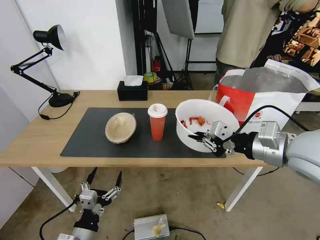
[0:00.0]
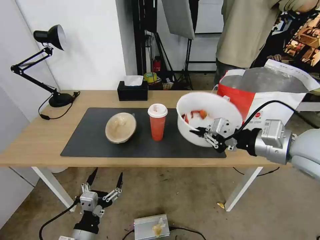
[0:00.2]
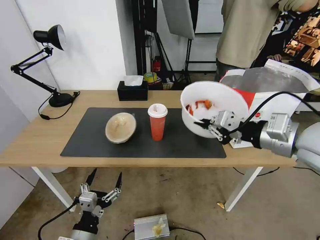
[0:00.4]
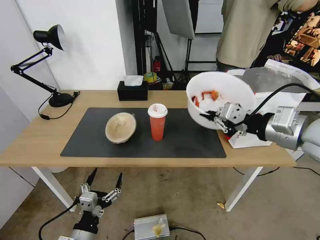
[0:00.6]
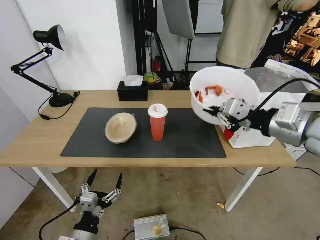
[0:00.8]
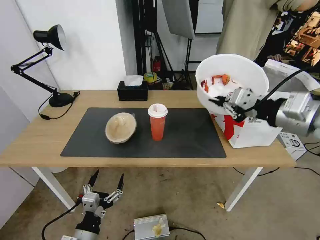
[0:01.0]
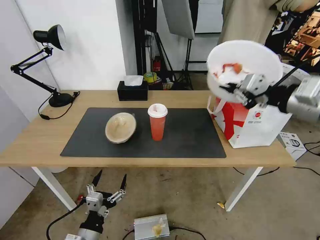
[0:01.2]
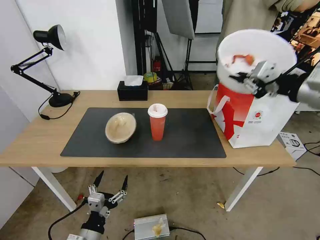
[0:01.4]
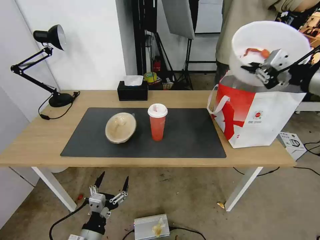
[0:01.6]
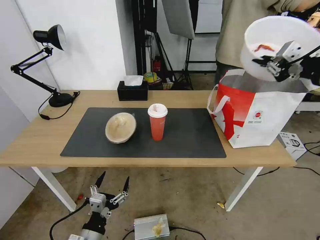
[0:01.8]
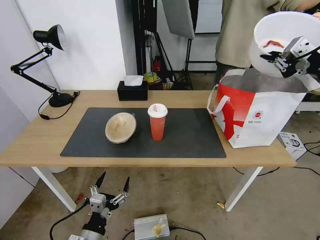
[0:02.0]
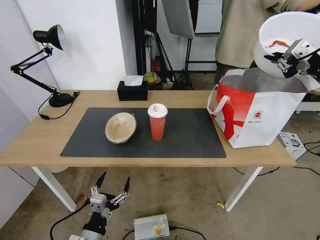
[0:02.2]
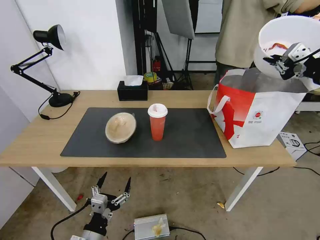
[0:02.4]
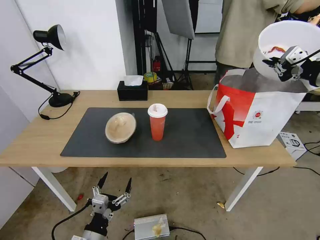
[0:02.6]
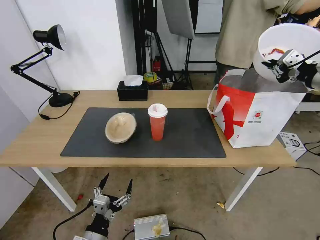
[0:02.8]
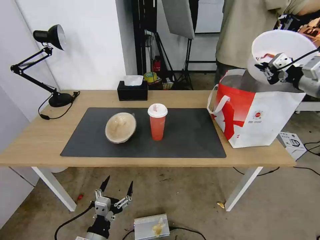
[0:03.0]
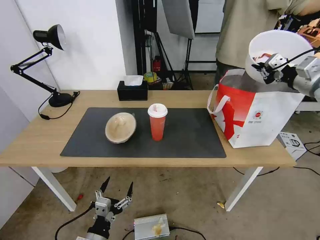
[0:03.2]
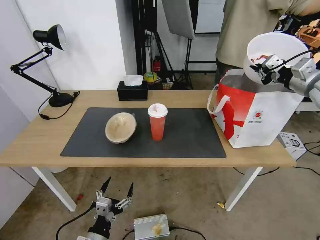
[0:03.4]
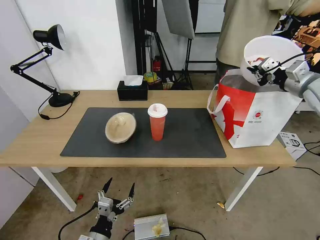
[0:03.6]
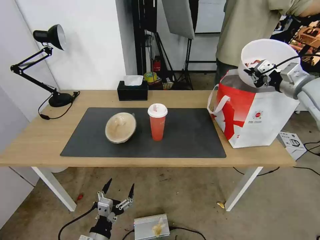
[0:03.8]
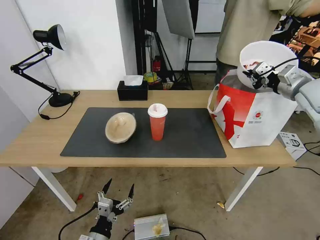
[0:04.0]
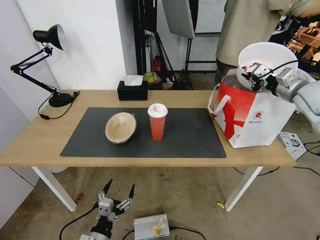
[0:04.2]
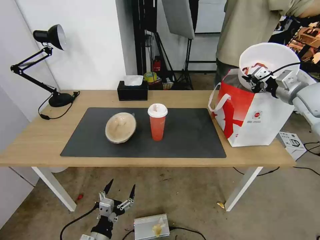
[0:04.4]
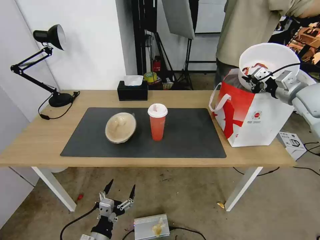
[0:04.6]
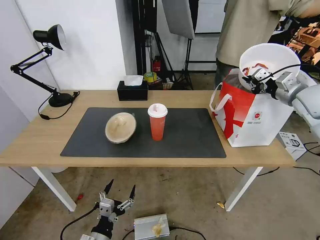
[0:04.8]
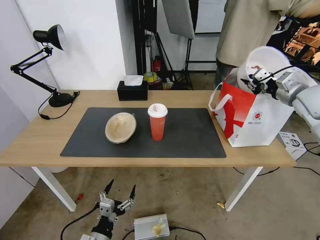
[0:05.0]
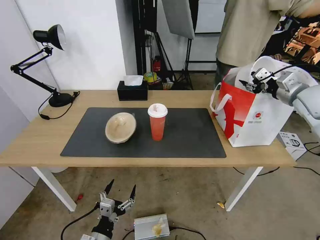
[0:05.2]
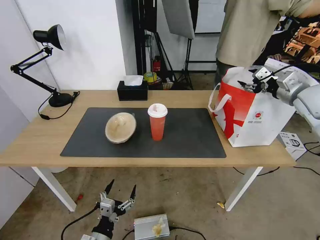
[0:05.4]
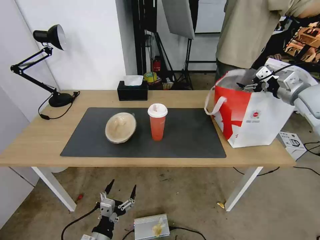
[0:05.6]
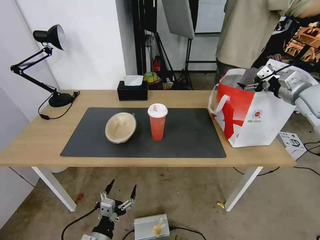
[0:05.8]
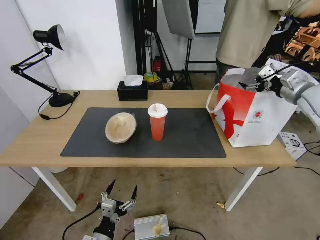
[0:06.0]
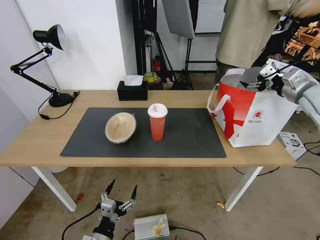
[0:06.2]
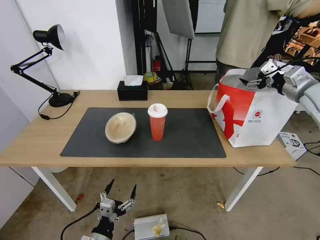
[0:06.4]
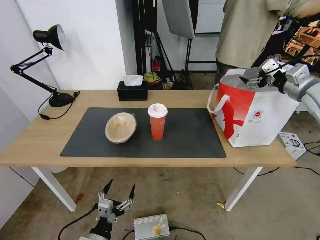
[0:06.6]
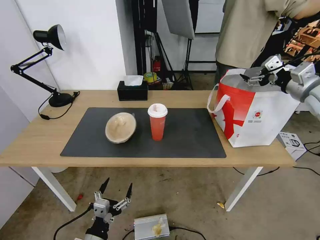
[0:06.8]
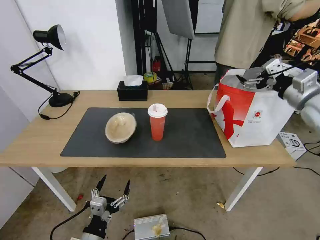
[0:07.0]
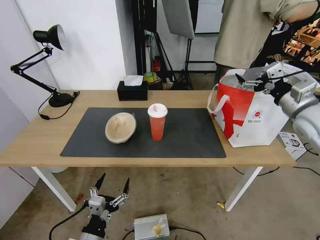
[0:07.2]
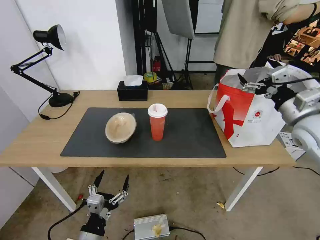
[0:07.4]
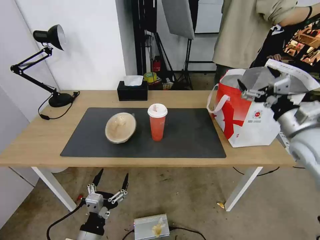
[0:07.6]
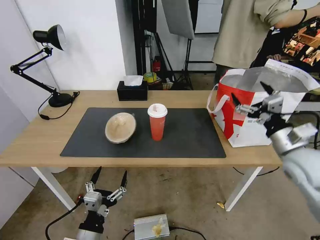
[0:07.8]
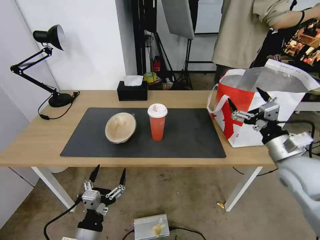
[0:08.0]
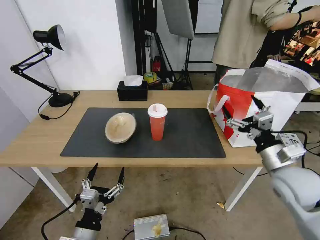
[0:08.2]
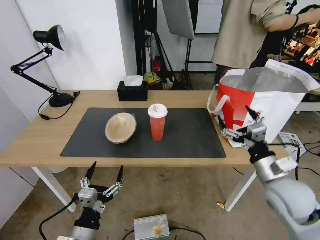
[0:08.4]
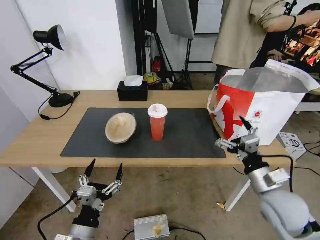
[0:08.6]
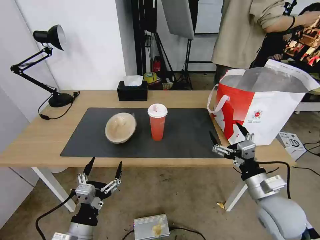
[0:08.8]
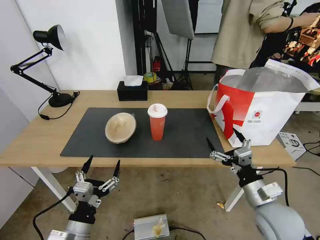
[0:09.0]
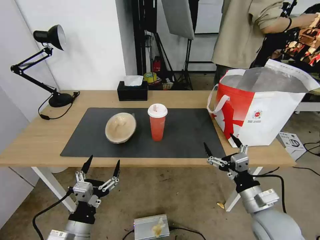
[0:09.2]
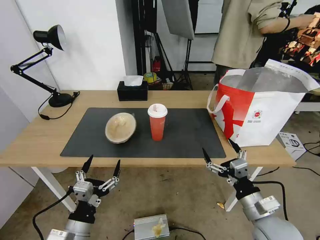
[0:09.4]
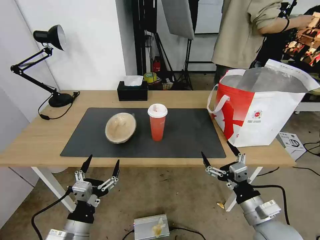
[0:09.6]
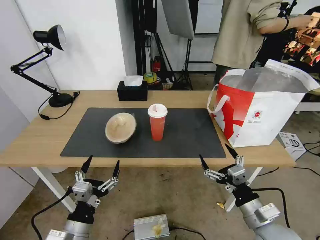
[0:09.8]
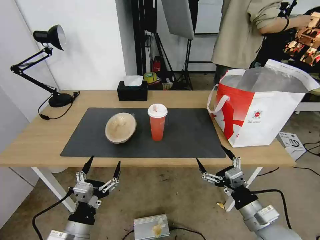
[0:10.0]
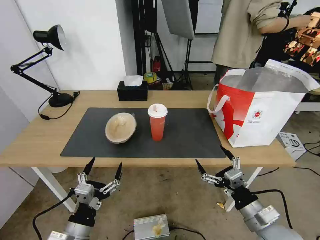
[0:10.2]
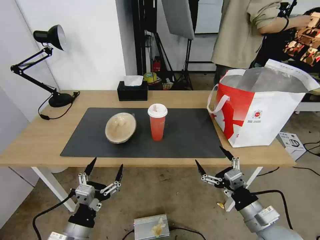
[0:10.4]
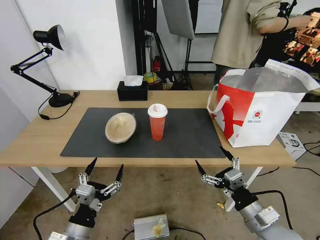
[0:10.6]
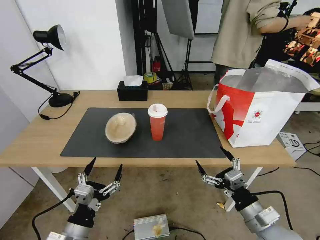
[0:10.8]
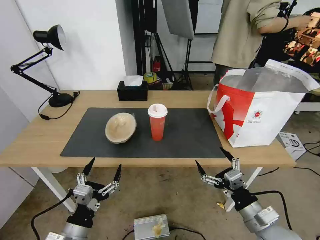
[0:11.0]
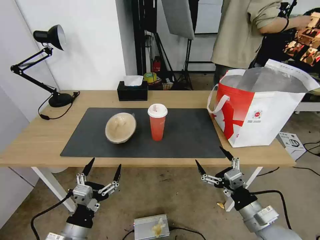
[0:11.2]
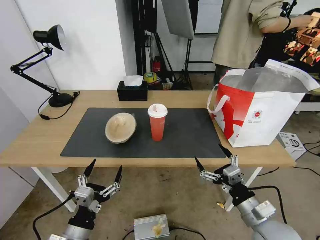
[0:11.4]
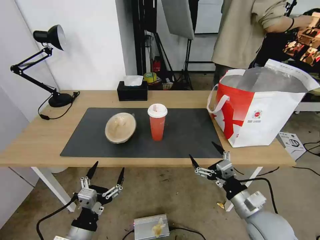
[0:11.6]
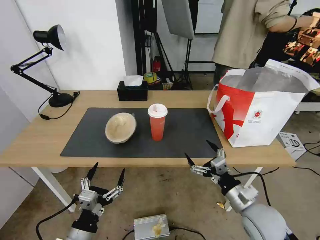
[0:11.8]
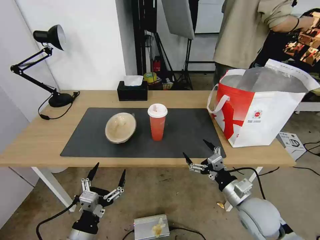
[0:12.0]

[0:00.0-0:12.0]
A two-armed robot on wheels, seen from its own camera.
Task of the whole recording: Pick up the trash from the table and place it into the takeout bag.
0:00.0 to 0:01.6: The right gripper travels upward, to the right and forward by some 15 cm.
0:01.6 to 0:03.0: The right gripper is displaced forward, to the right and downward by some 10 cm.
0:03.0 to 0:04.4: The right gripper moves downward and forward, approximately 10 cm.
0:04.4 to 0:06.0: The right gripper opens its fingers.
0:06.0 to 0:07.6: The right gripper moves backward, to the left and downward, roughly 15 cm, while the left gripper goes about 5 cm upward.
0:07.6 to 0:09.0: The right gripper moves downward, backward and to the left, approximately 20 cm.
0:09.0 to 0:10.4: The right gripper ends up about 5 cm from where it was.
0:10.4 to 0:12.0: The right gripper travels forward by some 5 cm.

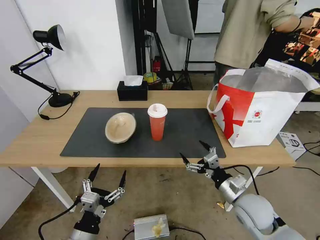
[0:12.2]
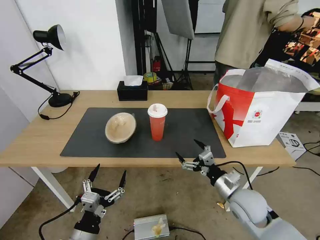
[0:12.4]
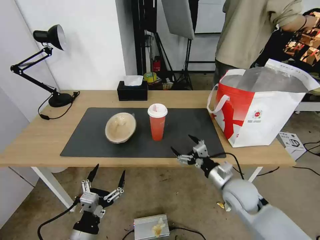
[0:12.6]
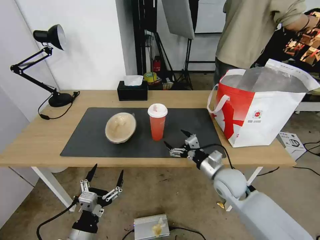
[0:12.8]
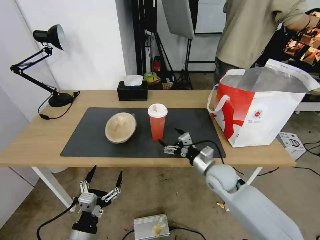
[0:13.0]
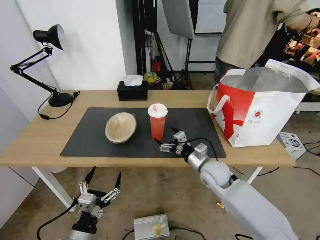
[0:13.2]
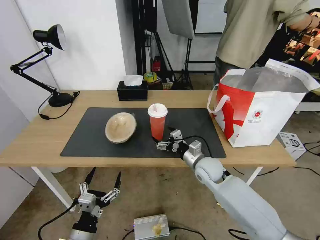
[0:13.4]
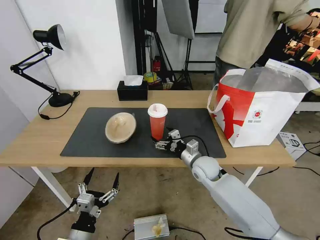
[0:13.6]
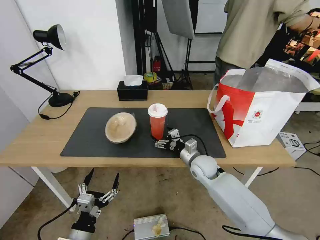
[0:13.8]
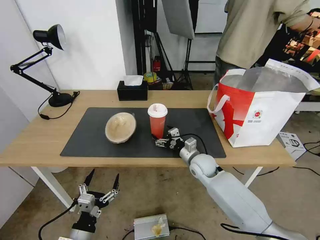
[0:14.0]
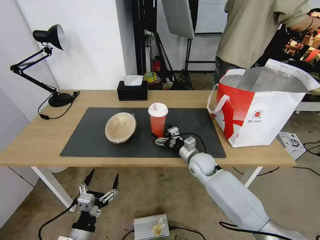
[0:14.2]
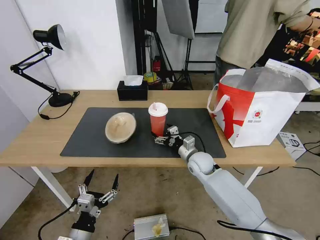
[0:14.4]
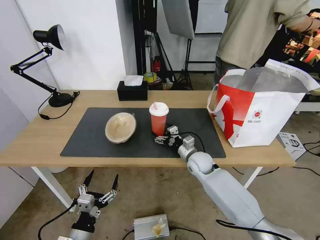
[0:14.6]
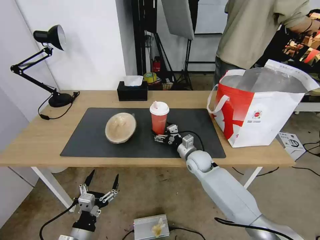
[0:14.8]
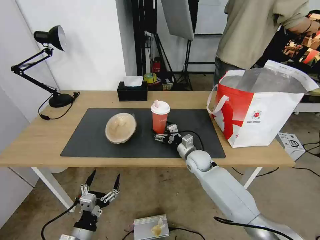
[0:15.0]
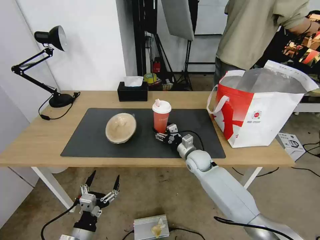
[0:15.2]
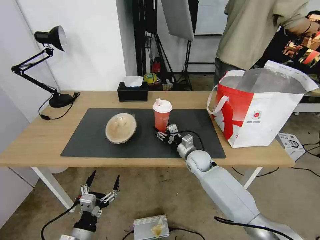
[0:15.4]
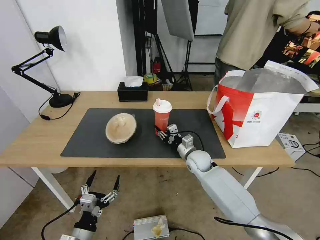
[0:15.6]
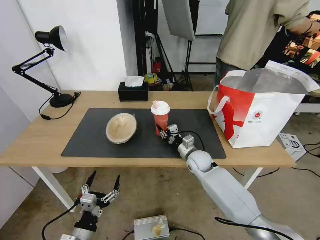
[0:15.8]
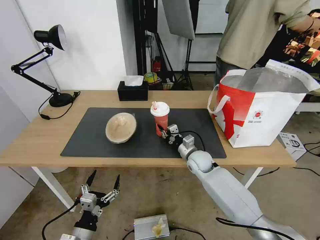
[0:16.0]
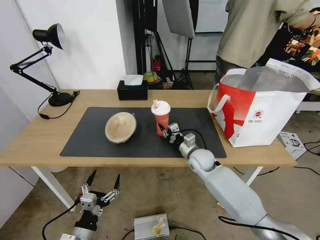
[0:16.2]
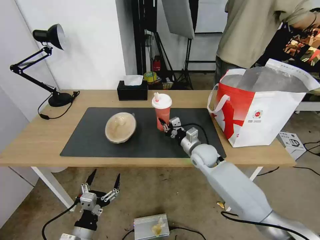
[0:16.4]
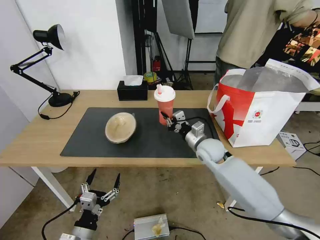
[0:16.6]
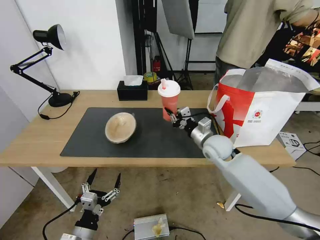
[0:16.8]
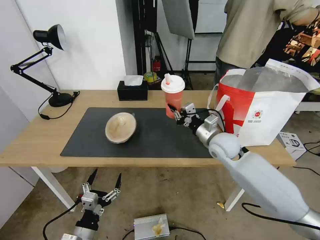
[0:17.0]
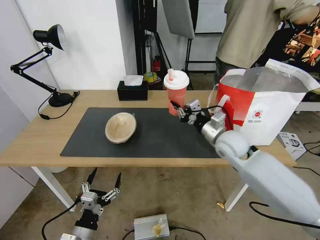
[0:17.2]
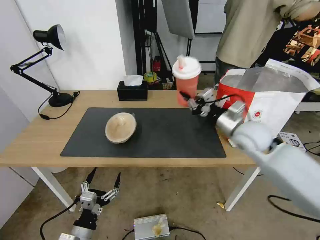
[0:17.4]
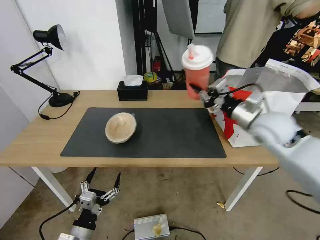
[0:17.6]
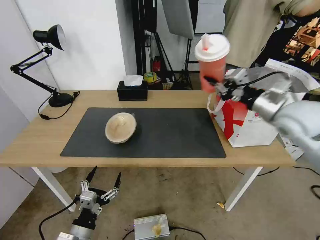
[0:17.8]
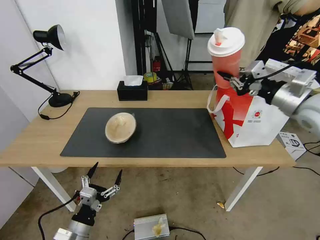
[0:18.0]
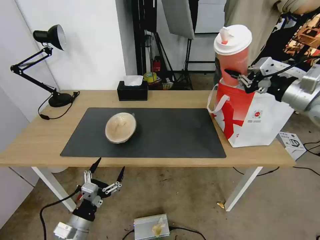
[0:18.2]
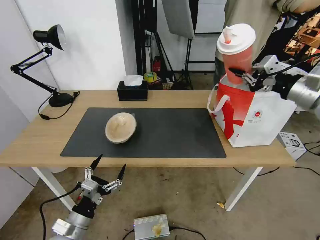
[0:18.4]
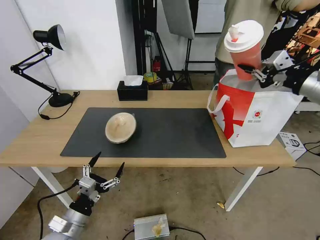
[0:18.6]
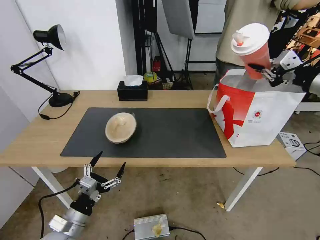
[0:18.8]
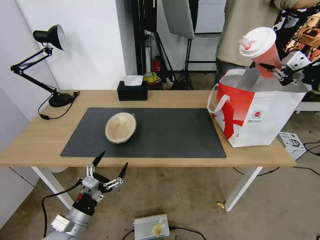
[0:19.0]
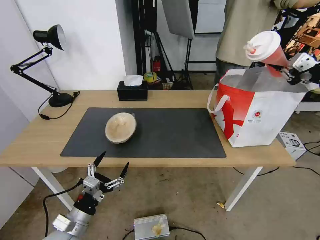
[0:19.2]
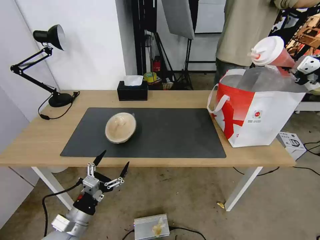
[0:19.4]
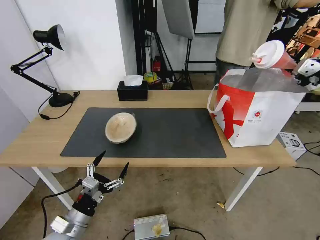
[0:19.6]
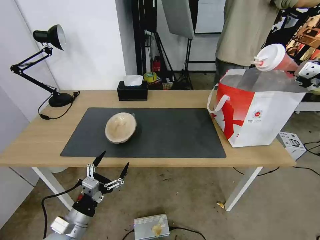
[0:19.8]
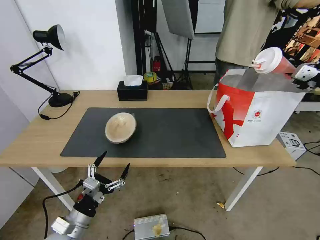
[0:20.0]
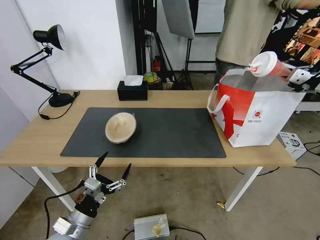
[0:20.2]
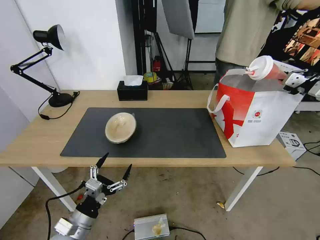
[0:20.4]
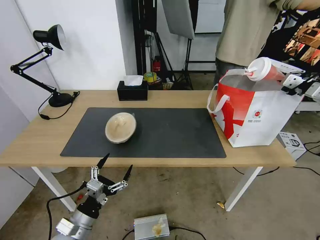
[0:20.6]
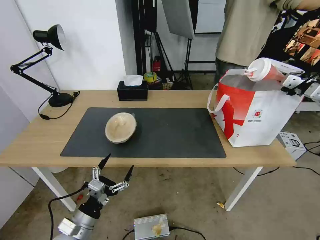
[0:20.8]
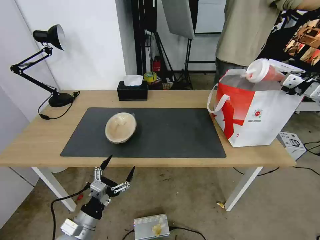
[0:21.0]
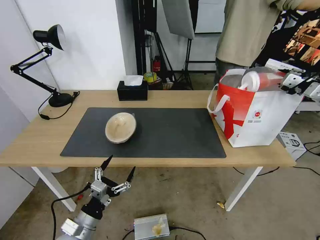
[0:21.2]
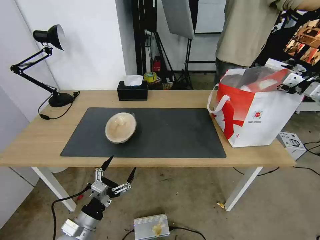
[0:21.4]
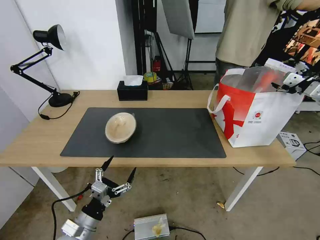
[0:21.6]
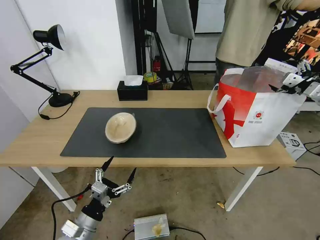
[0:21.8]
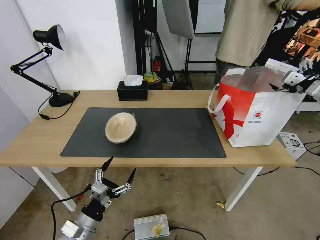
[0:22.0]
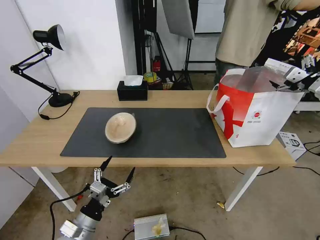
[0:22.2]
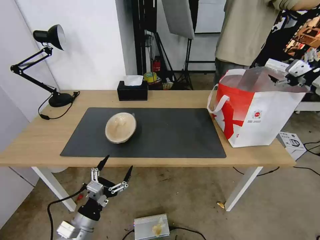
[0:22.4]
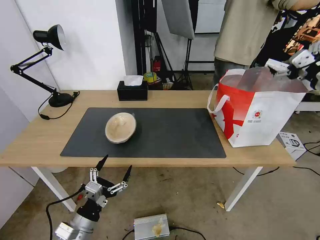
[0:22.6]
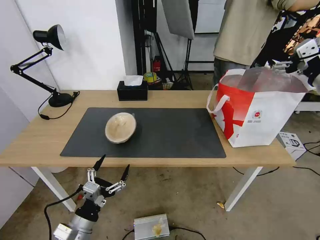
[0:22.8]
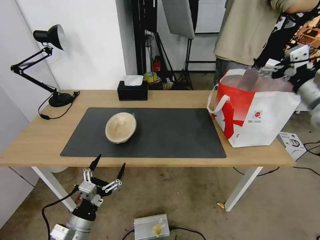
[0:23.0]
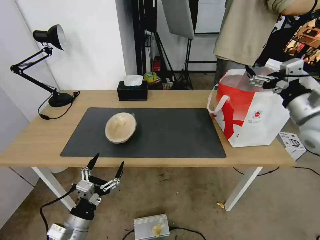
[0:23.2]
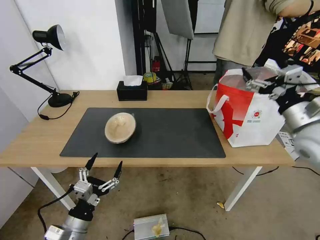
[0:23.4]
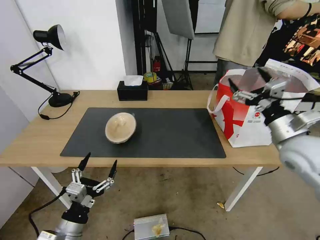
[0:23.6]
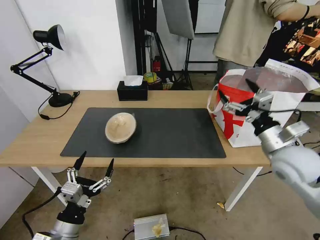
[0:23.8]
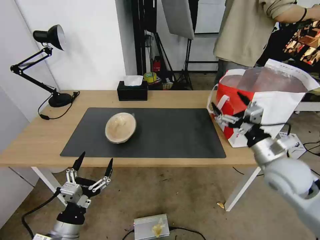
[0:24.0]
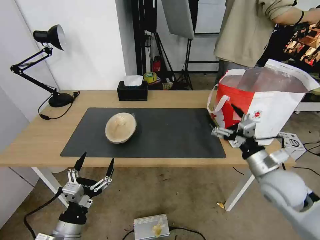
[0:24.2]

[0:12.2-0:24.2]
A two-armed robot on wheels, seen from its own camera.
Task of the whole recording: Pick up the trash from the table and place it into the takeout bag.
0:12.2 to 0:13.8: The right gripper travels forward and to the left by approximately 20 cm.
0:13.8 to 0:15.2: The grippers stay close to where they were, moving slightly.
0:15.2 to 0:16.6: The right gripper goes roughly 10 cm upward, and closes its fingers.
0:16.6 to 0:18.2: The right gripper heads upward and to the right, covering approximately 35 cm.
0:18.2 to 0:19.8: The right gripper is displaced to the right by about 15 cm.
0:19.8 to 0:21.2: The right gripper moves downward, about 5 cm.
0:21.2 to 0:22.6: The right gripper ends up roughly 5 cm from where it was, and opens.
0:22.6 to 0:24.2: The right gripper moves downward, to the left and backward, some 30 cm.
